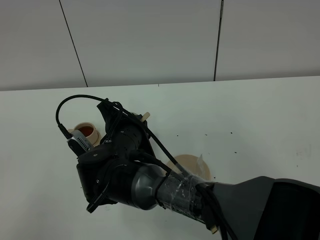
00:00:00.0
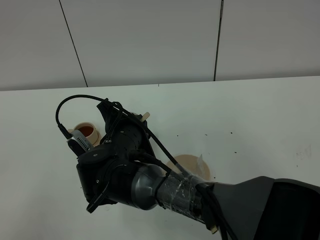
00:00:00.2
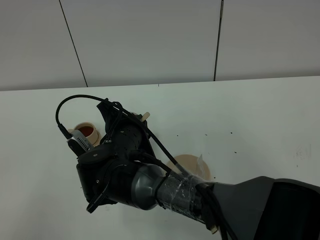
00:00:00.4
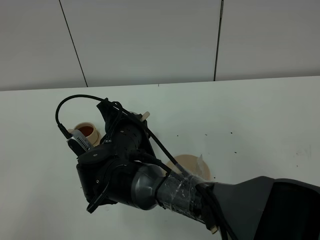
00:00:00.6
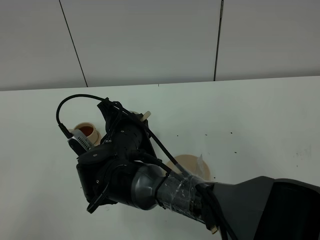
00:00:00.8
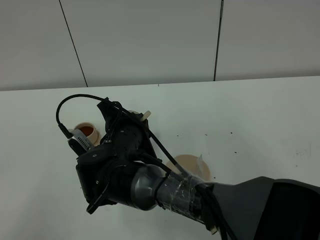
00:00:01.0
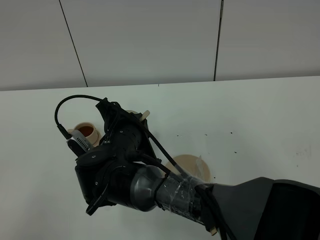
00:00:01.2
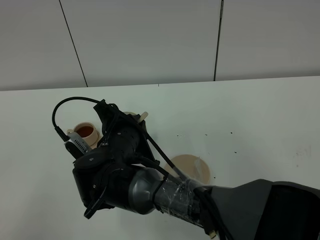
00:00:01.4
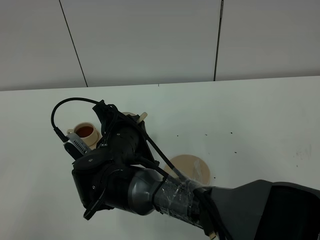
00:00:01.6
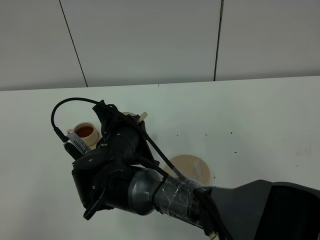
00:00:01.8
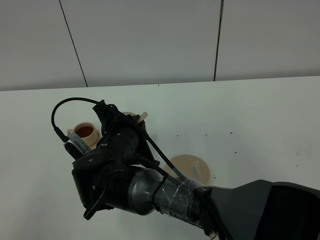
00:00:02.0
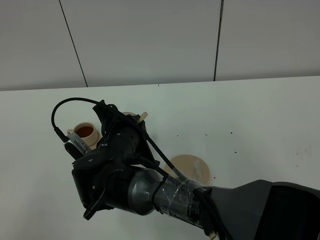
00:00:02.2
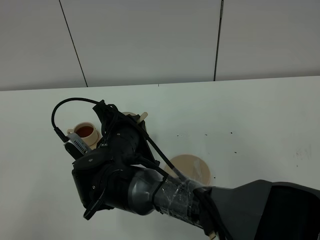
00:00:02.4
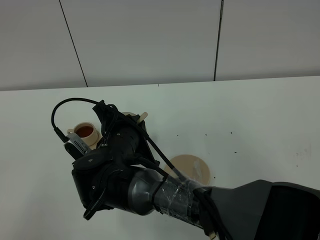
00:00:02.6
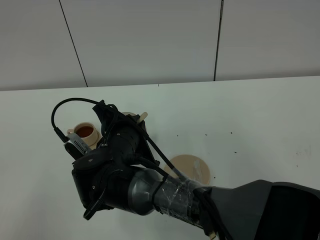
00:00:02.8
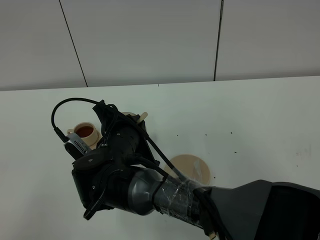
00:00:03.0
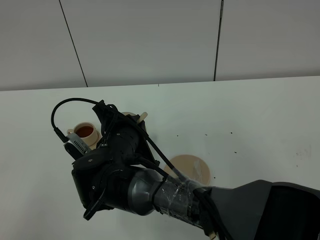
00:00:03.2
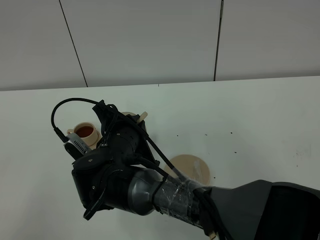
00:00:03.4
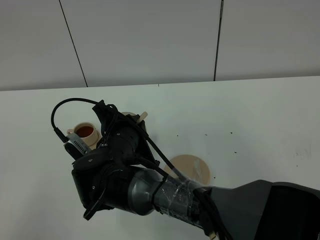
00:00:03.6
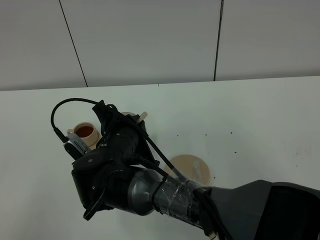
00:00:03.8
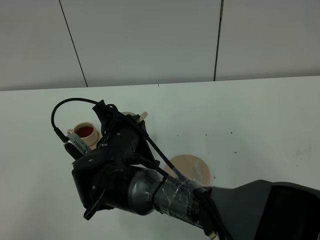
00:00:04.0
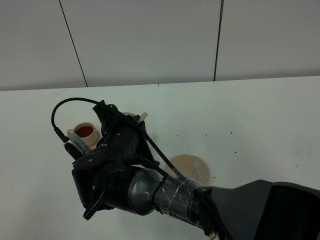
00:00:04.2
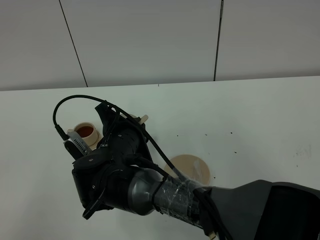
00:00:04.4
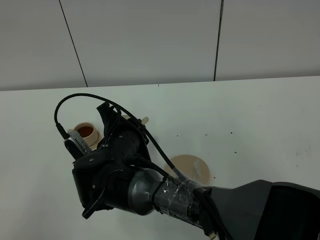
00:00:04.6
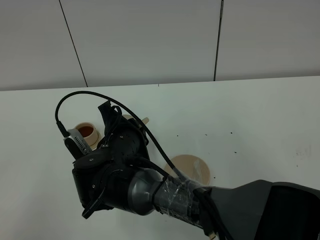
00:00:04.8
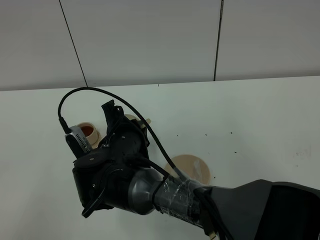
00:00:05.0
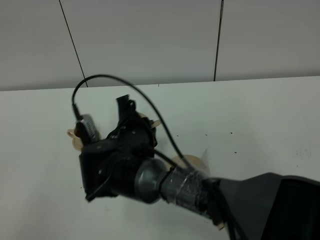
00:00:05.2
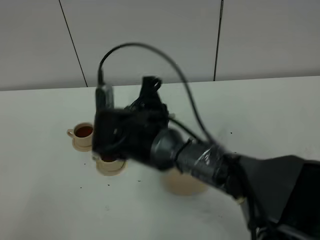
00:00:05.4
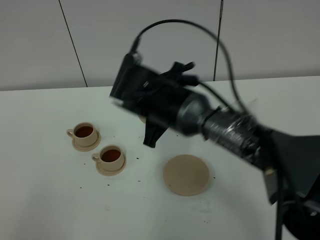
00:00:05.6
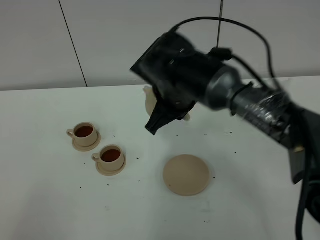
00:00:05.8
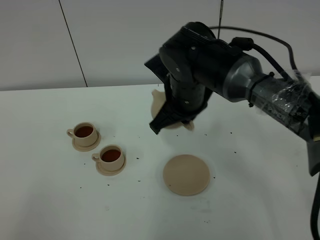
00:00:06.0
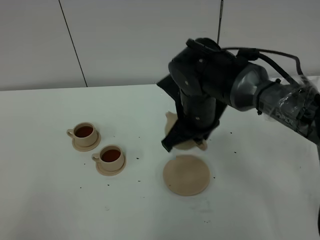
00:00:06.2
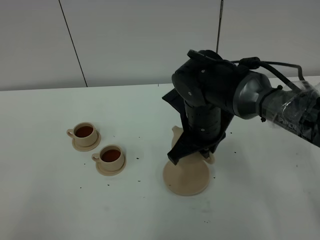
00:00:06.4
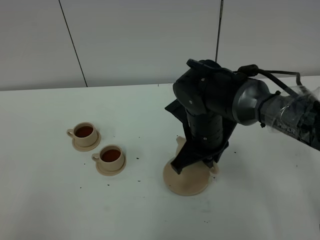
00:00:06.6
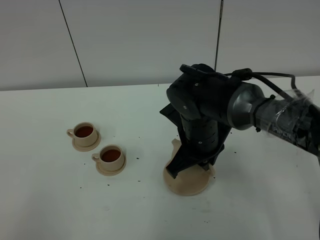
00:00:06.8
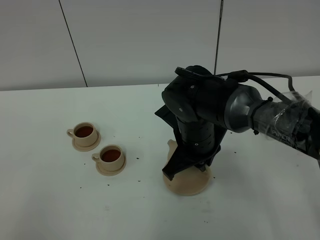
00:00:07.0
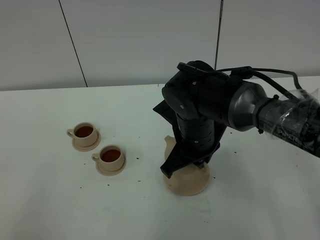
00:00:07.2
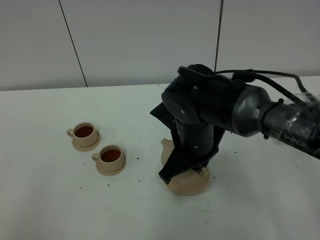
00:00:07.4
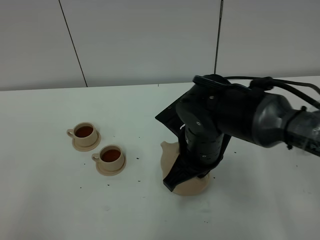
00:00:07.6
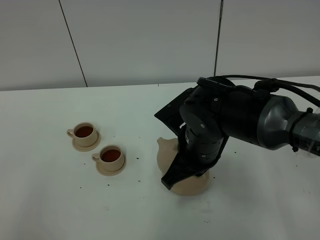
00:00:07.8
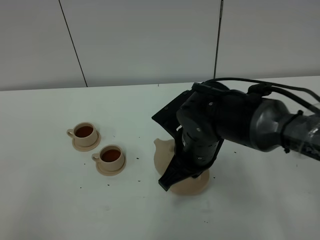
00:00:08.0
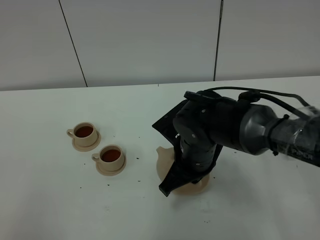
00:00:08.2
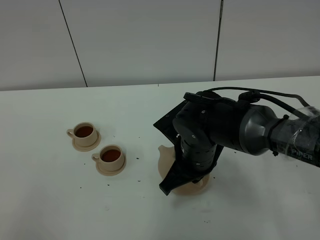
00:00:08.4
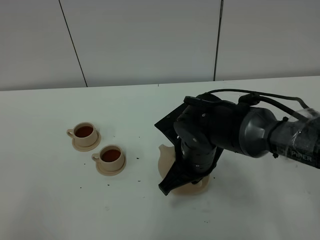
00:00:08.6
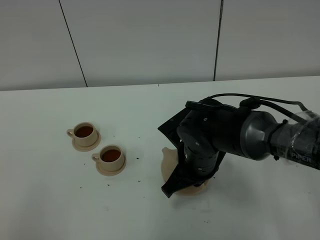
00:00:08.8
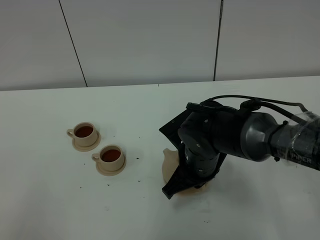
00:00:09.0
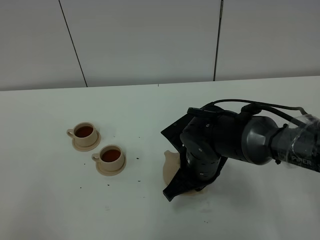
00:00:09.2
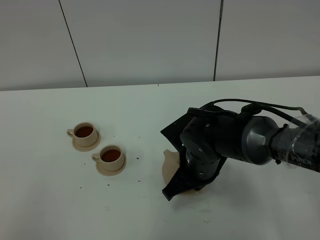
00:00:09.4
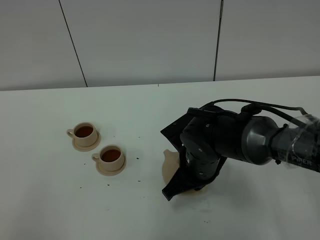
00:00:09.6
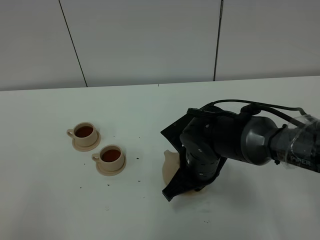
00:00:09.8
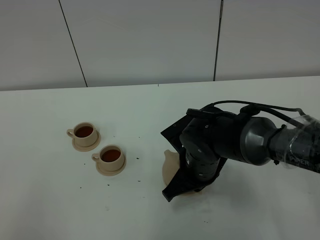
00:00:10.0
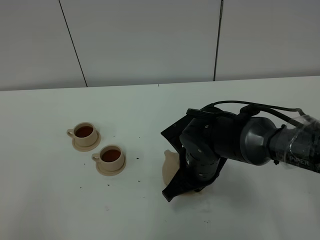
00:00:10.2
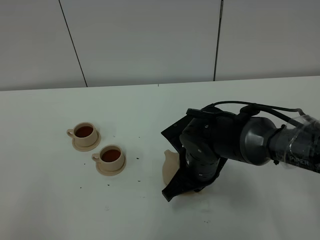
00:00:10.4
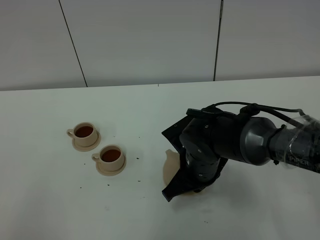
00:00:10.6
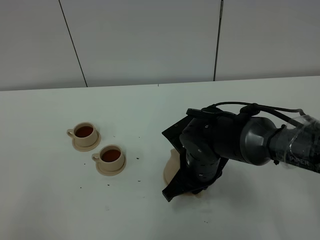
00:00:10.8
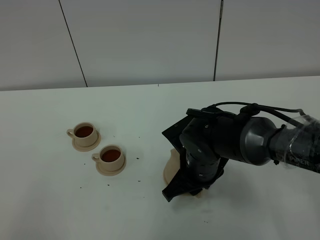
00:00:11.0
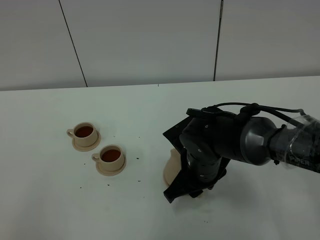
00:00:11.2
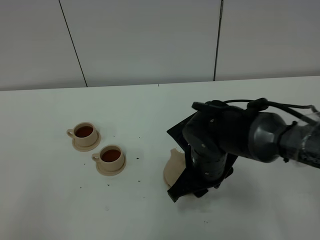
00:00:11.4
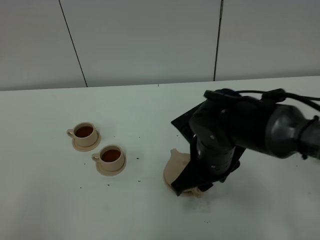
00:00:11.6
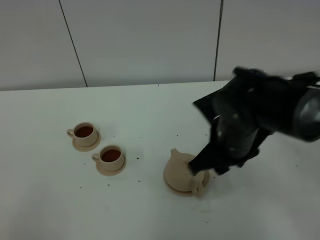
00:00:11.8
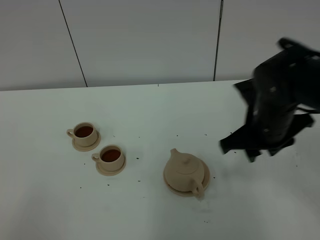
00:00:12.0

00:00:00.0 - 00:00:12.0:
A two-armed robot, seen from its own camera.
Task of the whole recording: grasp the brown teapot and pour the tea into the two brown teacups one by one, put the brown teapot back in its original place.
Step, 00:00:00.0 - 00:00:02.6: Pour tea into the teacup with the right gripper.
00:00:00.0 - 00:00:04.4: Both grippers stay put.
00:00:04.4 - 00:00:06.0: The right gripper shifts roughly 15 cm to the right, upward and forward.
00:00:06.0 - 00:00:07.6: The right gripper shifts some 10 cm backward.
00:00:07.6 - 00:00:09.0: The right gripper moves downward, roughly 5 cm.
00:00:09.0 - 00:00:10.4: Both grippers stay about where they are.
00:00:10.4 - 00:00:12.0: The right gripper travels to the right and upward by about 15 cm, and opens.

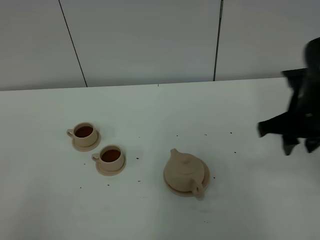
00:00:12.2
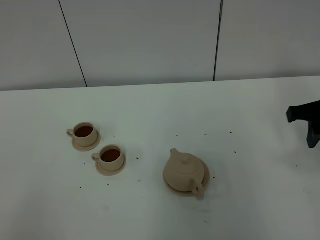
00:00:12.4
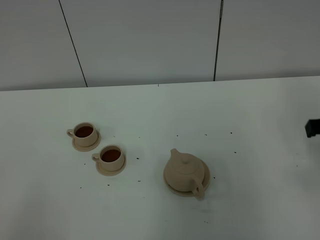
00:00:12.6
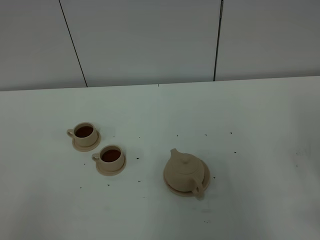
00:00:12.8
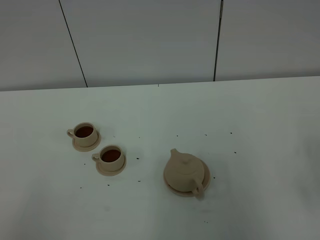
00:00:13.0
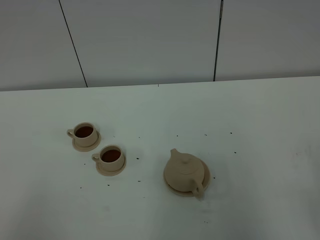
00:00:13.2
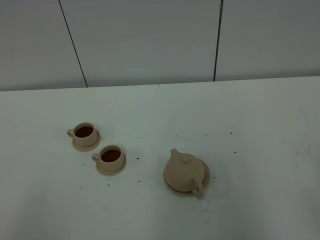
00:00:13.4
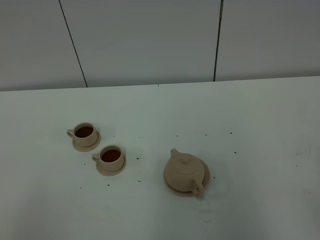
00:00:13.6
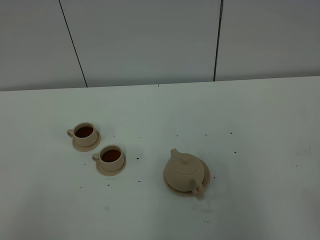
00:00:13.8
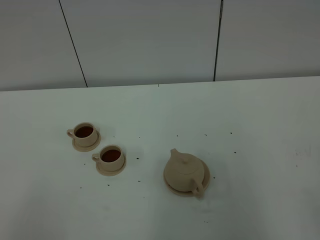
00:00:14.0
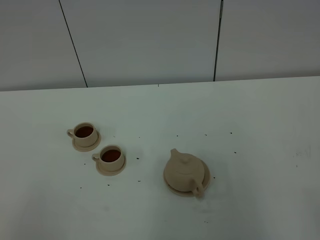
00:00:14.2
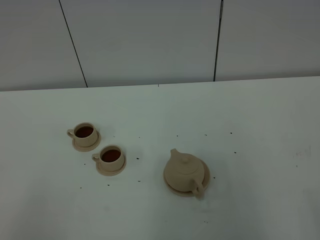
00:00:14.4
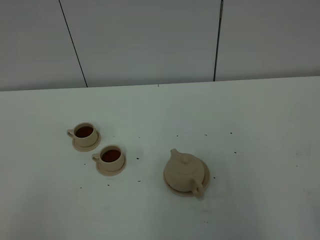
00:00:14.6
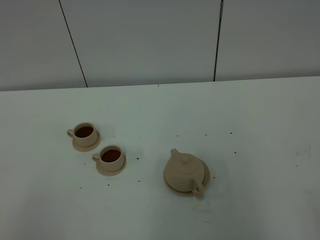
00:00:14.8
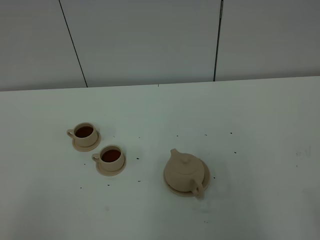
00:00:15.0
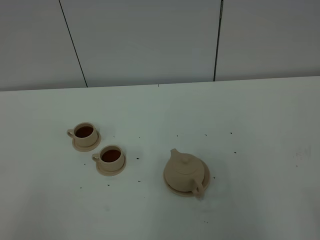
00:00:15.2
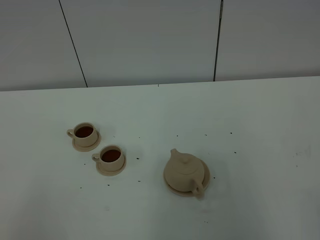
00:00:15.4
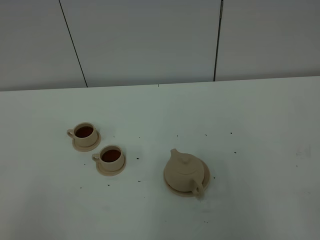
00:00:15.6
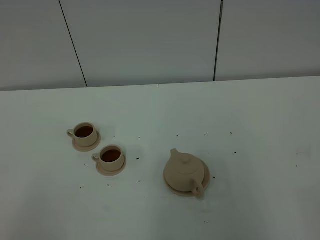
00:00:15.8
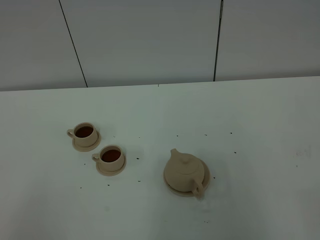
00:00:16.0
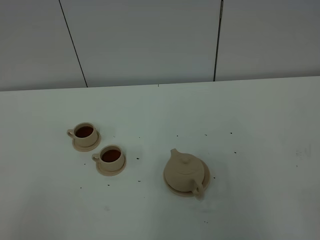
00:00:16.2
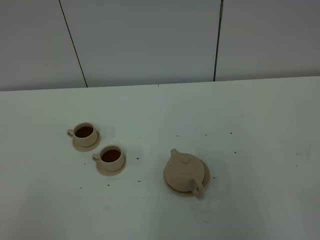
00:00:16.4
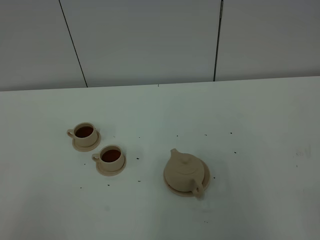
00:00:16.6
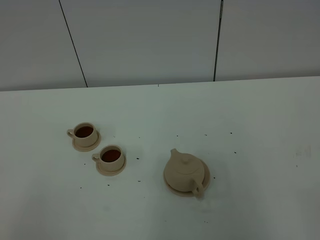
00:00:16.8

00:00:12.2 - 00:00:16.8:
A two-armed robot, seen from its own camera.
Task of the whole recording: grasp the brown teapot and pour the tea into the two brown teacups one by one, put the brown teapot back in its original place.
00:00:12.2 - 00:00:13.8: The right gripper is displaced backward by approximately 30 cm.
